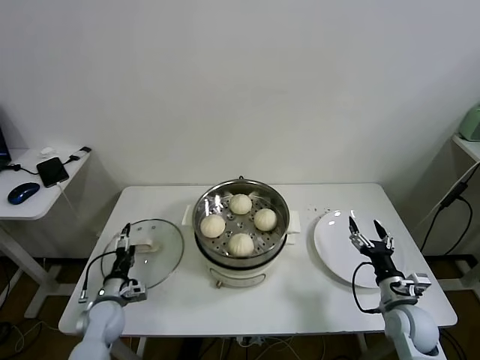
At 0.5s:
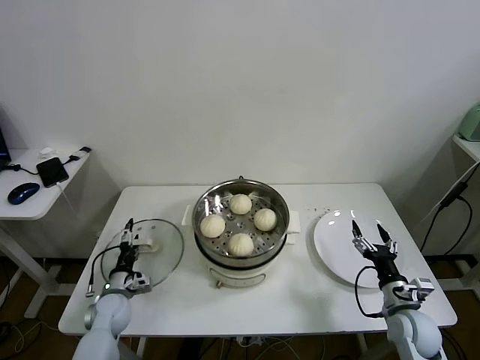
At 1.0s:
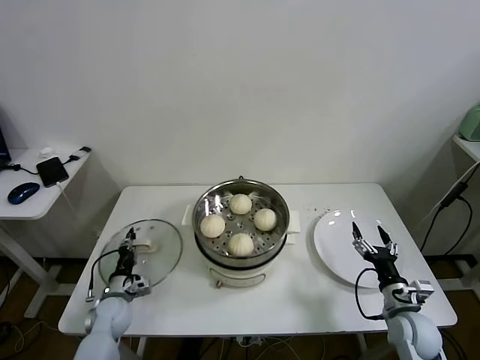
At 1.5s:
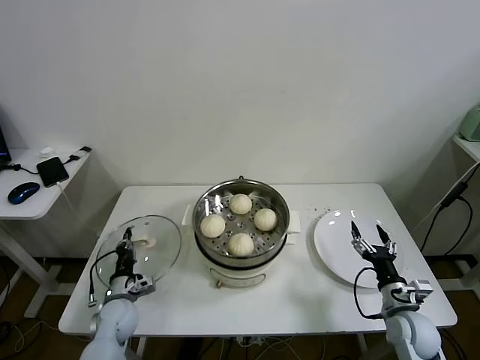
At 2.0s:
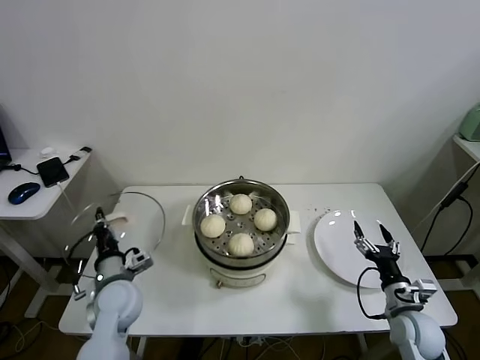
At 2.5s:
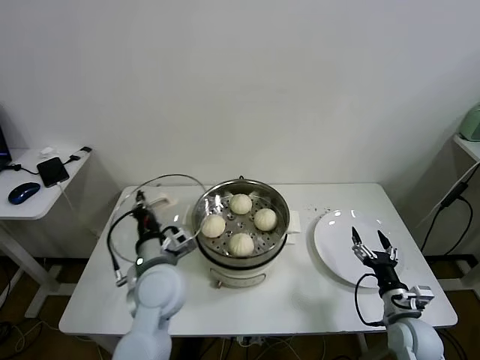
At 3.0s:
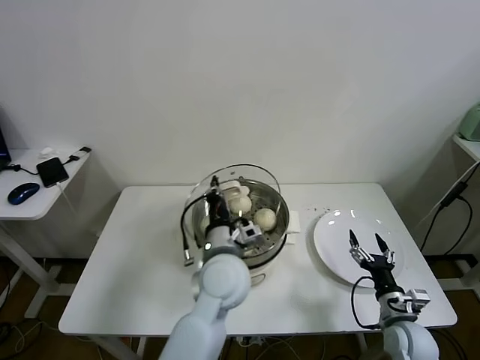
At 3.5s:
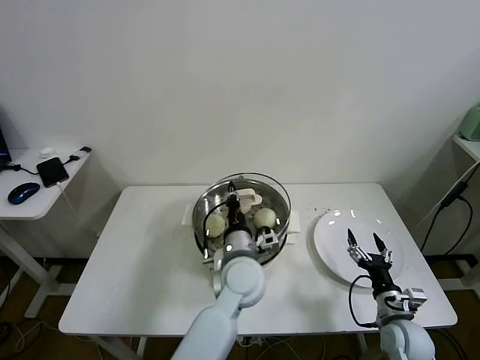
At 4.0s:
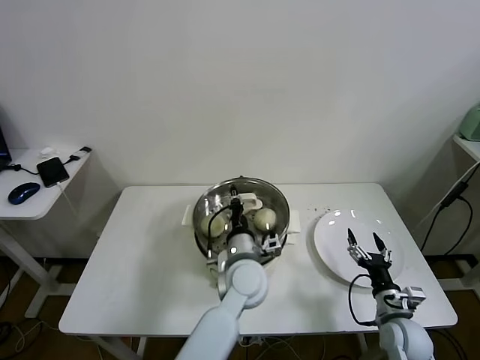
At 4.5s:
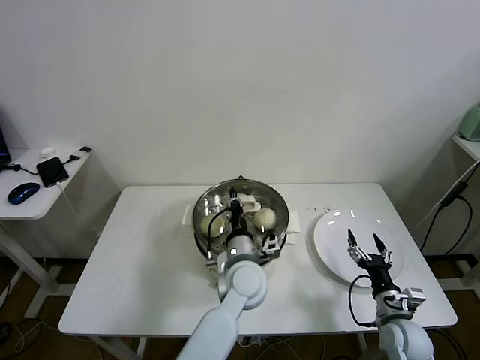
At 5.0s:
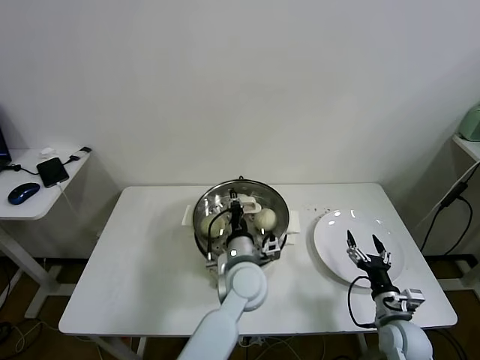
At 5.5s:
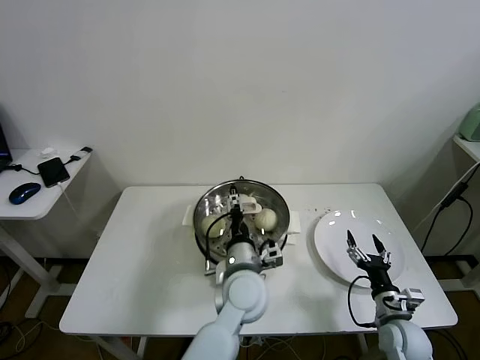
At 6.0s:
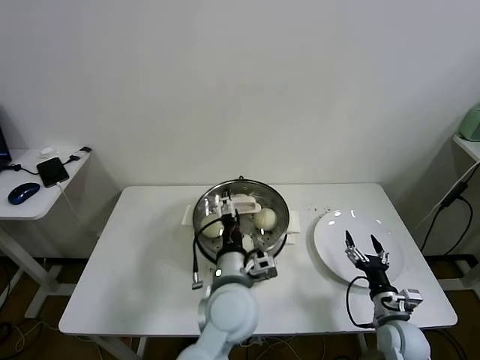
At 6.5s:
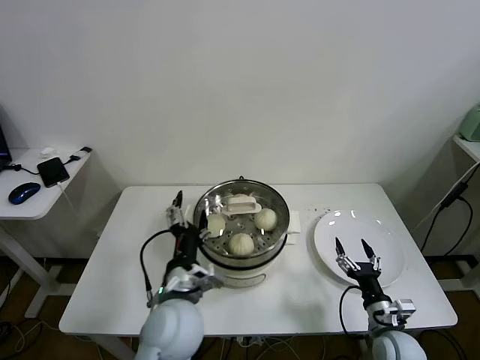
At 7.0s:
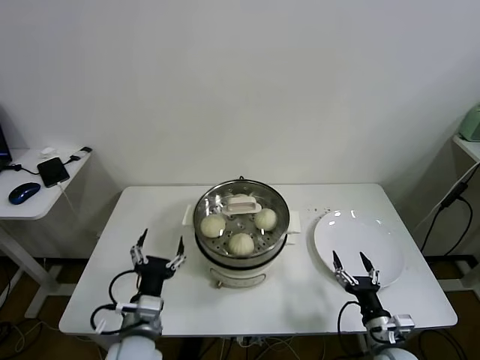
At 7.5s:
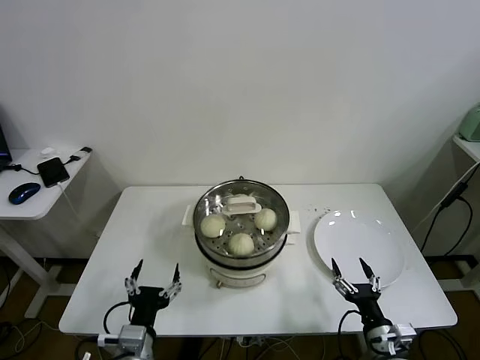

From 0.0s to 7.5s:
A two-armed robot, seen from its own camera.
Task of the whole recording: take steamed baozi put them in steamer.
Step, from 1.5s to 5.5s: Place the pot lid on the steamer with left gripper.
From 0.0s to 2.0s: The left gripper is displaced upward and to the right by about 15 cm, and closes up.
From 2.0s to 4.0s: The left gripper heads to the right, covering approximately 30 cm.
From 4.0s to 5.5s: The left gripper opens its fingers.
From 5.5s to 7.5s: The right gripper travels backward by approximately 5 cm. Meanwhile the left gripper moves to the left and backward, about 25 cm, and opens up.

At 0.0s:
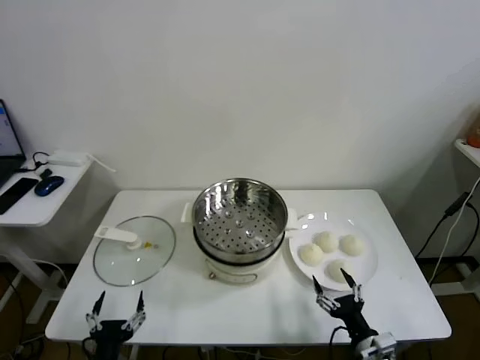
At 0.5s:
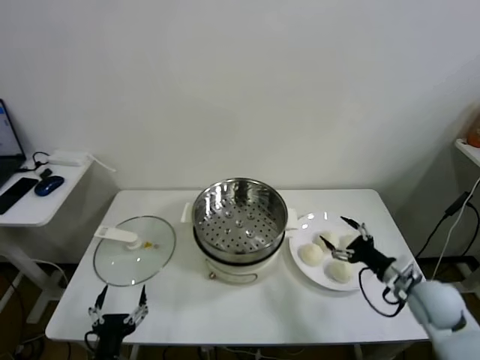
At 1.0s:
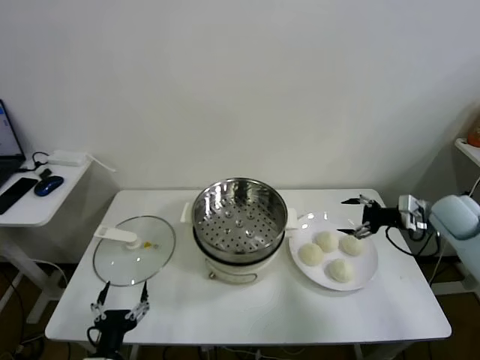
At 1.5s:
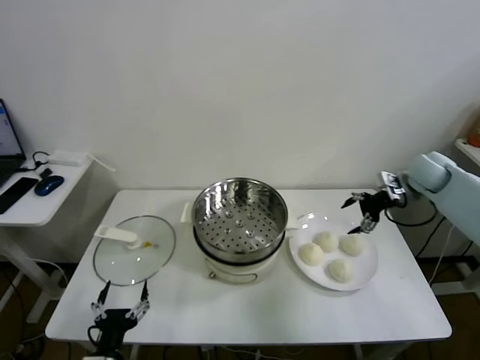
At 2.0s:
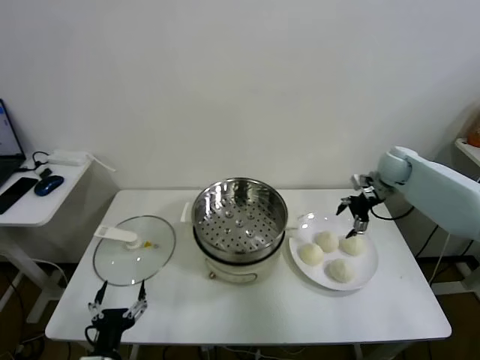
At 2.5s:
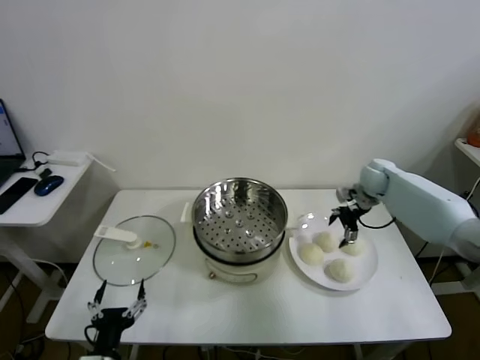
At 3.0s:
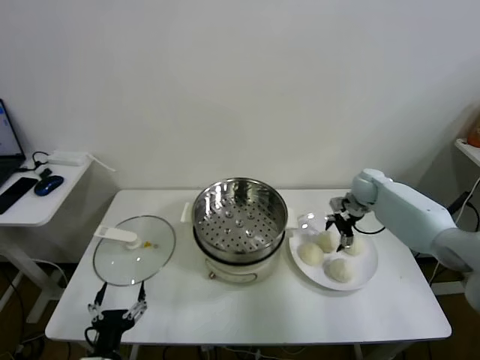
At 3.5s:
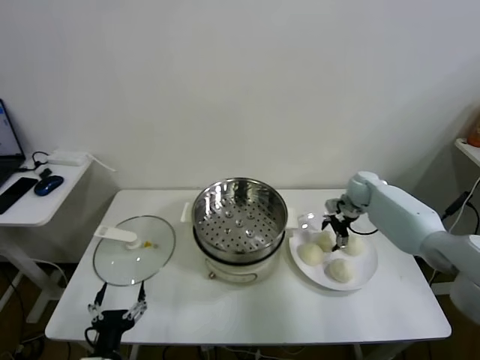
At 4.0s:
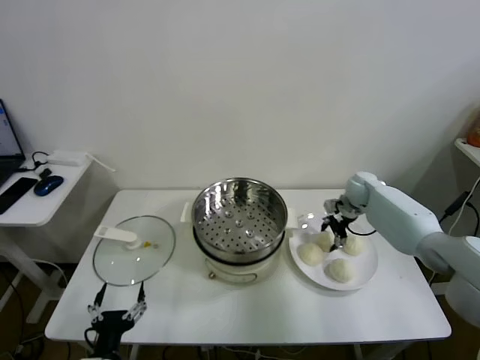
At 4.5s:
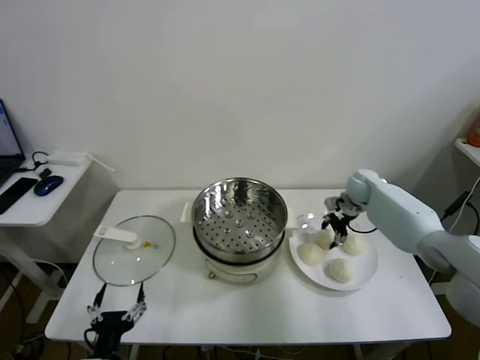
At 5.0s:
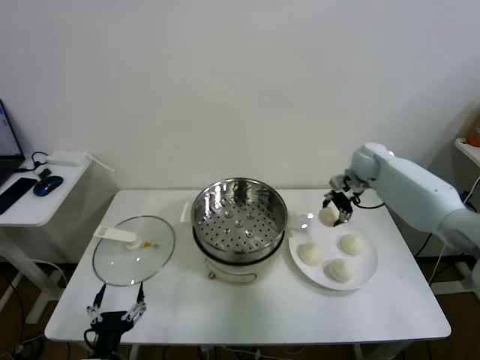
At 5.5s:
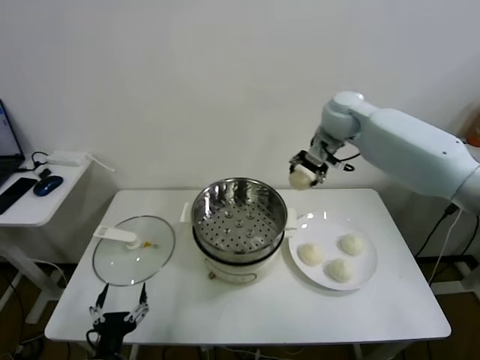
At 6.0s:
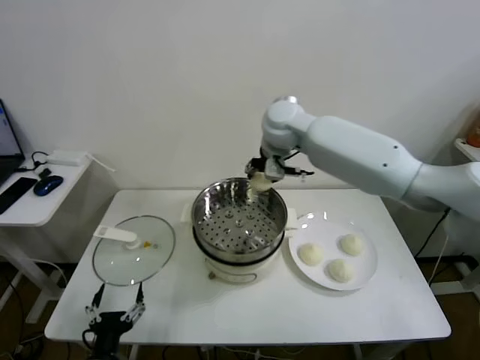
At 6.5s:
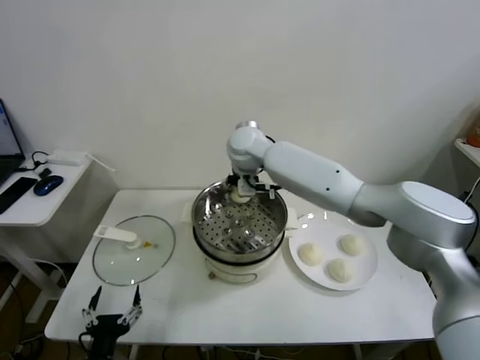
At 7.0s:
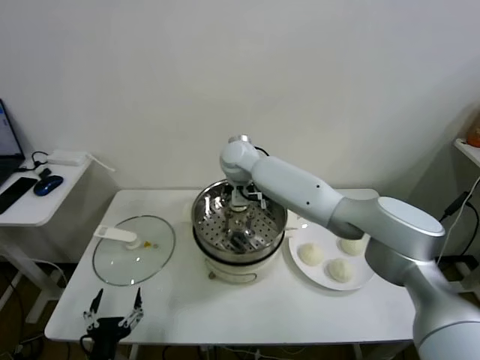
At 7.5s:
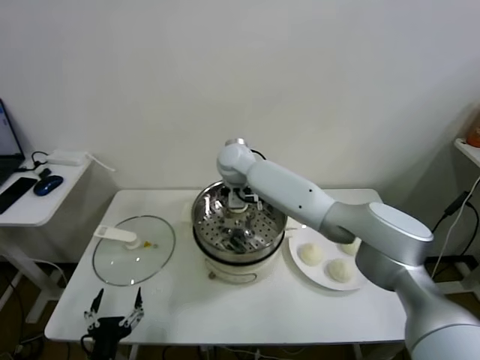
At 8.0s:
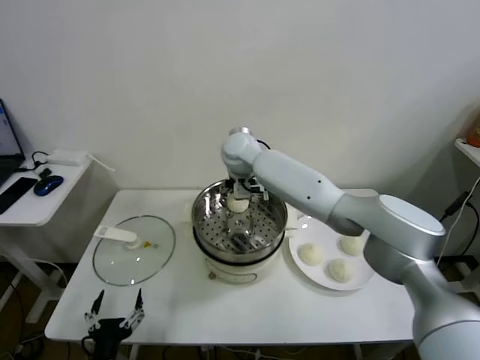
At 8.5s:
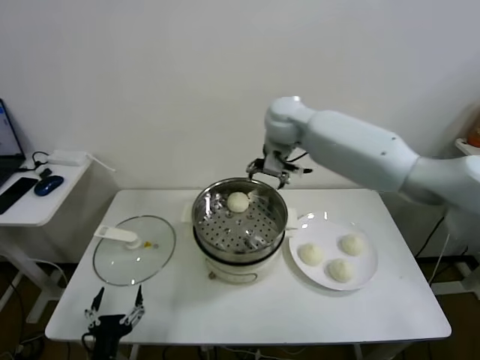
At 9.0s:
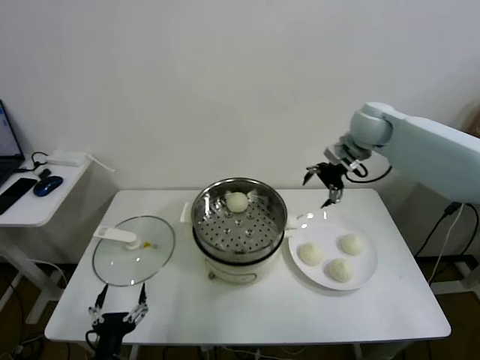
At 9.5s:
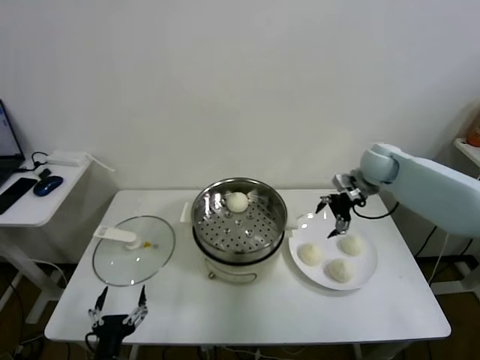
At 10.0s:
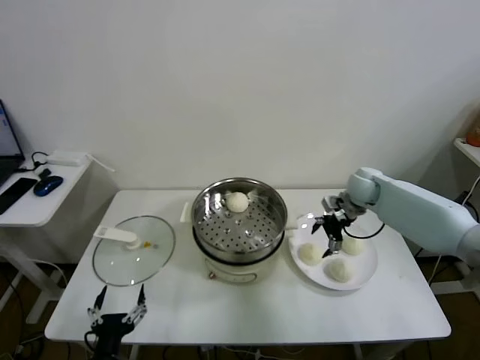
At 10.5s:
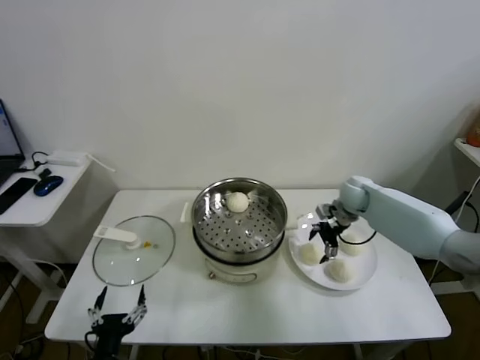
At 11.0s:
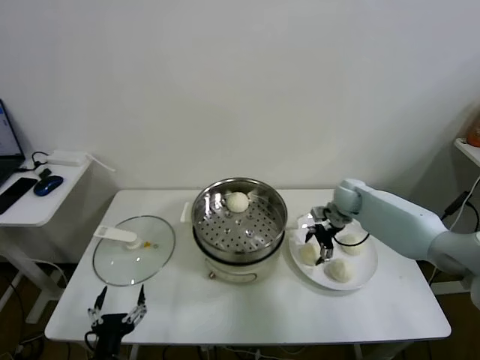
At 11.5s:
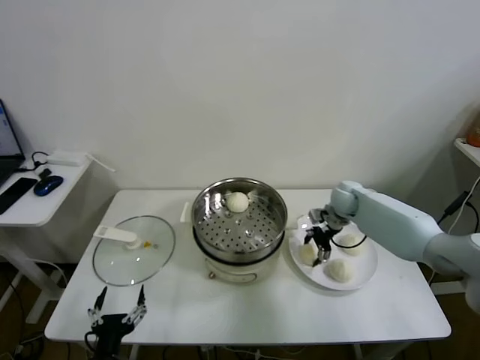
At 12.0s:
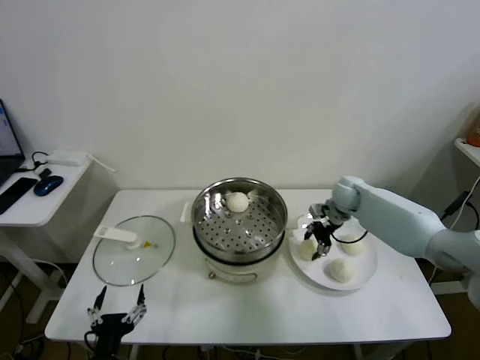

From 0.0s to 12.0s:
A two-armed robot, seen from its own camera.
Task of the whole recording: take steamed baozi put them in steamer.
Step, from 0.0s to 4.0s: Grasp the baozi in the plate with right gripper.
Step, from 4.5s to 7.5s: Place the baozi on the steamer with right gripper.
Step, from 8.0s to 11.5s: Grasp the baozi in the plate with right gripper.
From 2.0s to 4.0s: The right gripper shifts some 10 cm downward and to the left, and closes up.
From 4.0s to 6.0s: The right gripper travels to the left and upward by approximately 35 cm.
From 6.0s to 8.0s: The right gripper travels to the left and downward by roughly 15 cm, and opens up.
From 8.0s to 10.0s: The right gripper is displaced to the right by approximately 35 cm.
From 10.0s to 12.0s: The right gripper moves downward, about 5 cm, and closes.

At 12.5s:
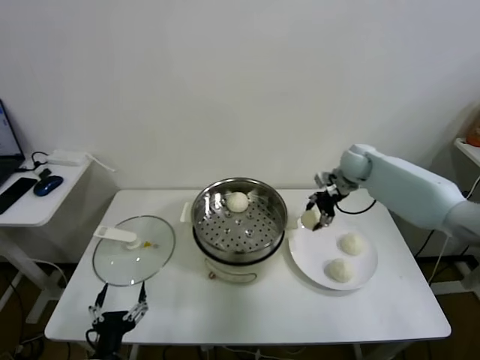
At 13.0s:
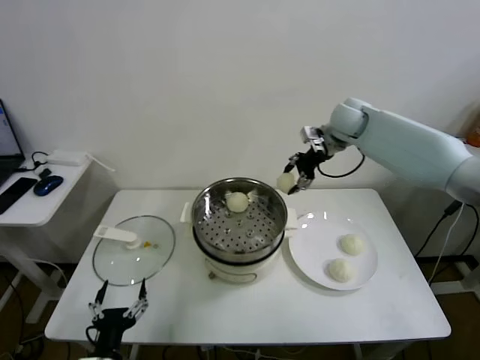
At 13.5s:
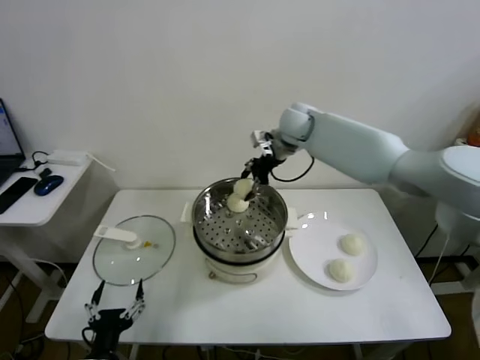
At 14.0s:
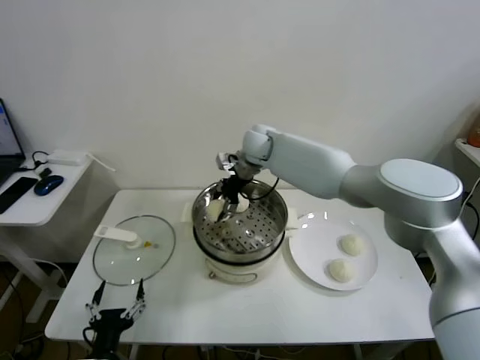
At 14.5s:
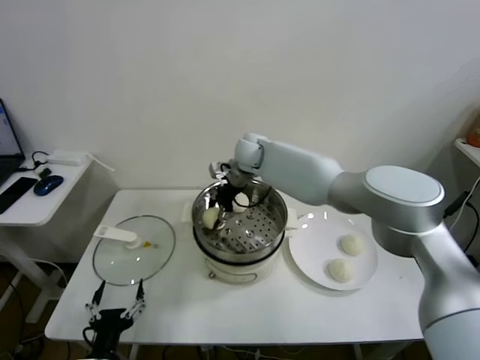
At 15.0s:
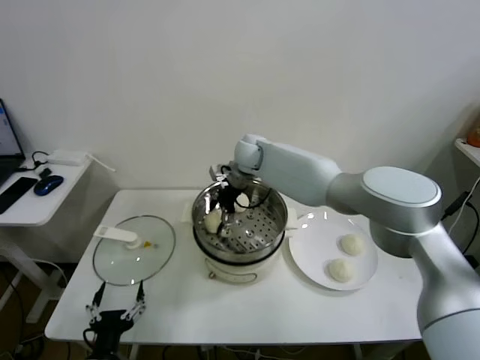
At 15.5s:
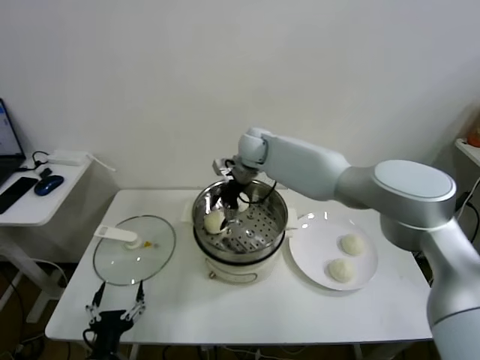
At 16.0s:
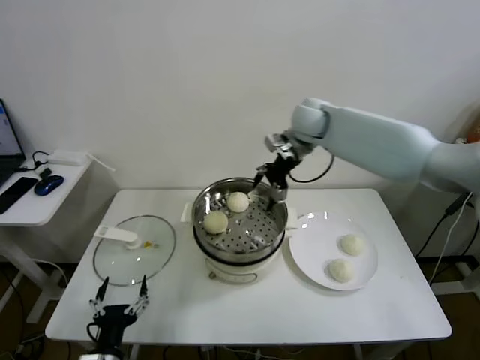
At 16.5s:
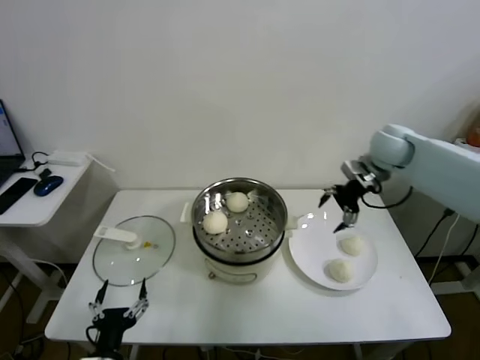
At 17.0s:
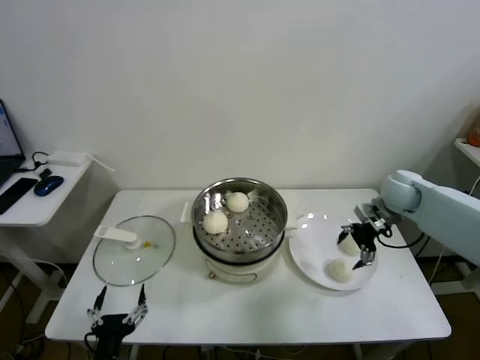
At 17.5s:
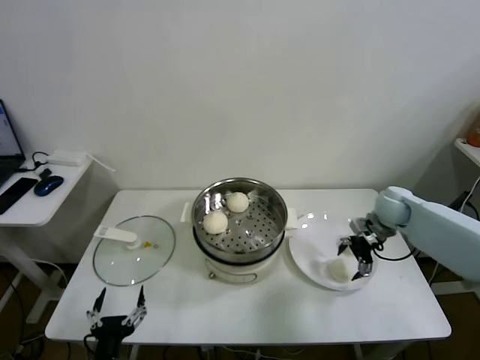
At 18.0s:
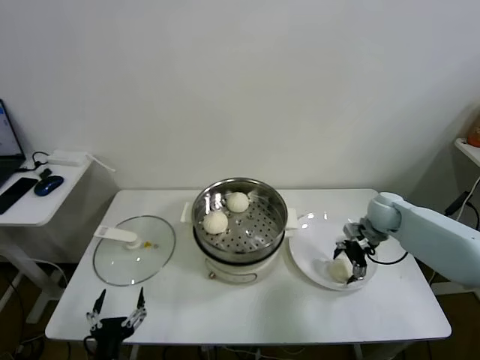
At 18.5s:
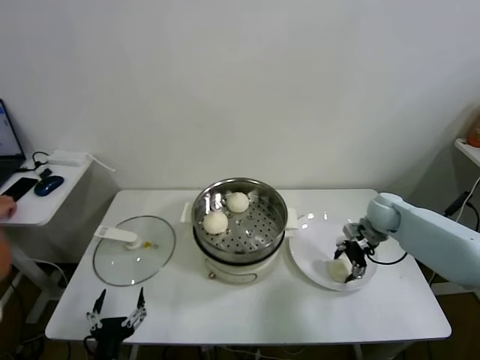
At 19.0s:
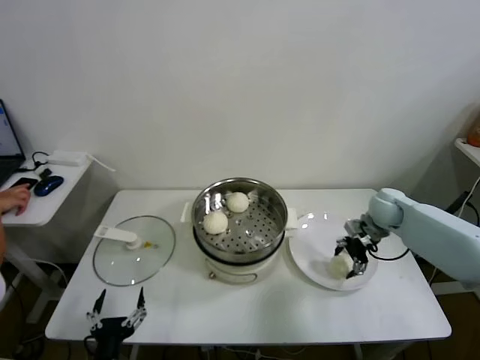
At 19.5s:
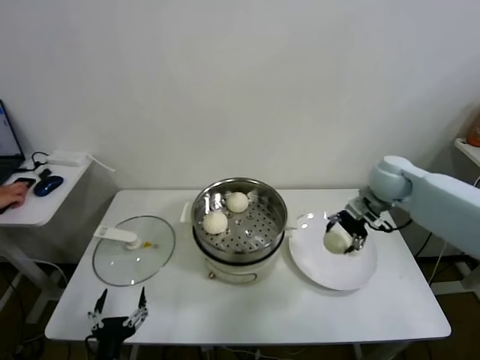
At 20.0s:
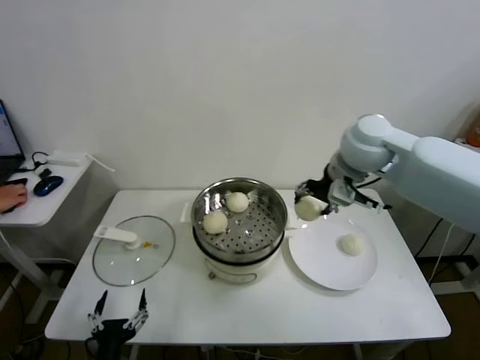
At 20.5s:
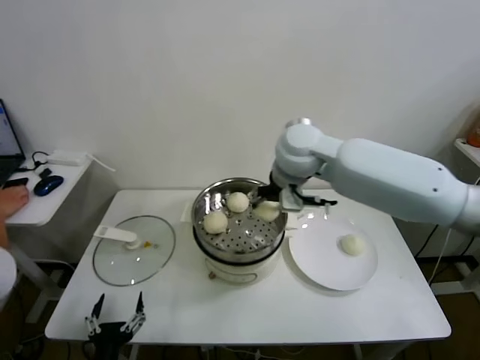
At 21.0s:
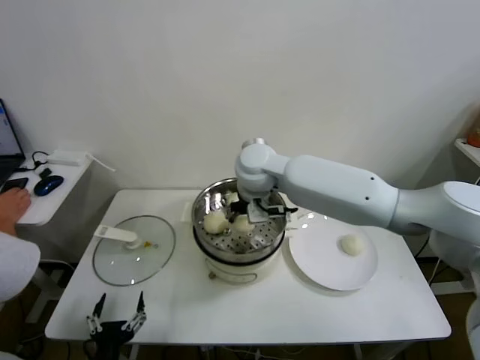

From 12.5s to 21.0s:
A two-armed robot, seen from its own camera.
Task of the whole recording: take steamed baozi put them in steamer.
Step, from 12.5s to 15.0s: Place the baozi on the steamer with right gripper.
Step, from 15.5s to 18.5s: Grasp the baozi in the plate with right gripper.
From 12.5s to 14.5s: The right gripper shifts about 30 cm to the left.
From 14.5s to 16.5s: The right gripper is displaced to the right by about 30 cm, and opens its fingers.
From 16.5s to 19.0s: The right gripper heads downward, covering some 20 cm, and closes up.
From 19.0s to 21.0s: The right gripper moves to the left and upward, some 40 cm.
